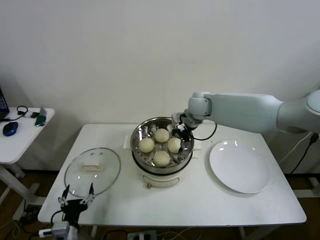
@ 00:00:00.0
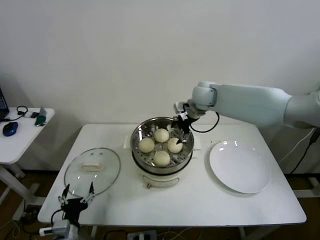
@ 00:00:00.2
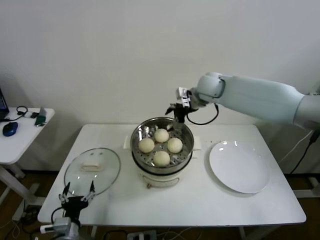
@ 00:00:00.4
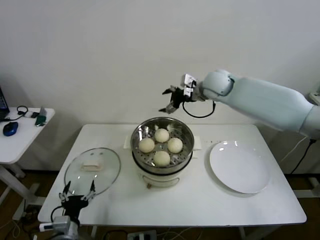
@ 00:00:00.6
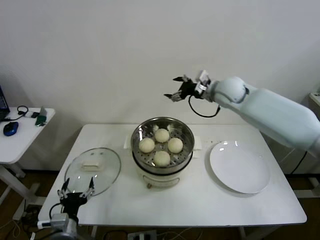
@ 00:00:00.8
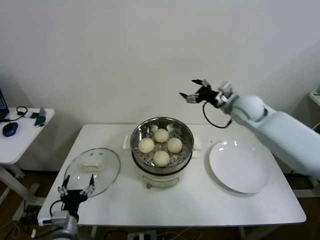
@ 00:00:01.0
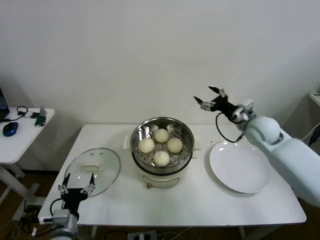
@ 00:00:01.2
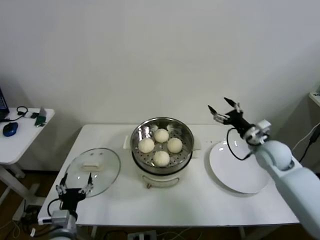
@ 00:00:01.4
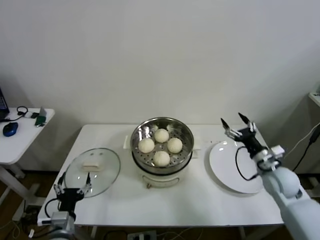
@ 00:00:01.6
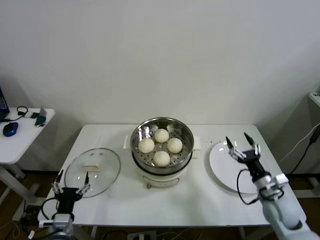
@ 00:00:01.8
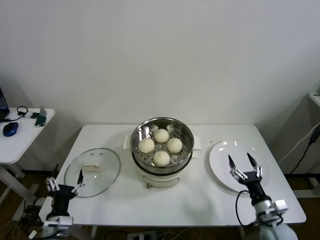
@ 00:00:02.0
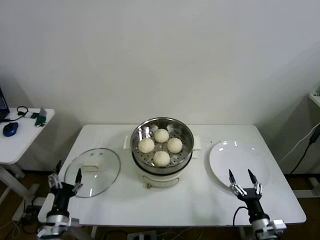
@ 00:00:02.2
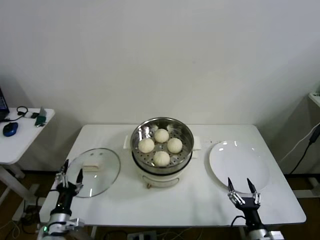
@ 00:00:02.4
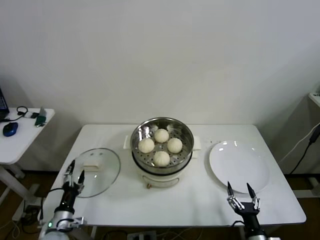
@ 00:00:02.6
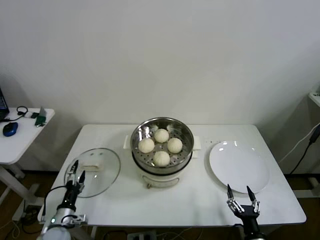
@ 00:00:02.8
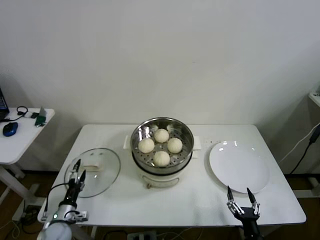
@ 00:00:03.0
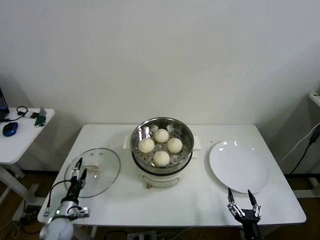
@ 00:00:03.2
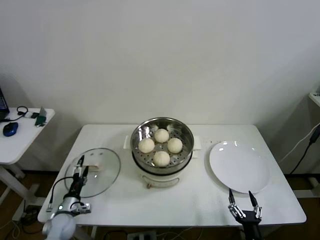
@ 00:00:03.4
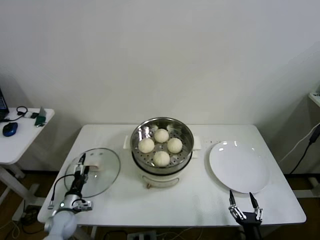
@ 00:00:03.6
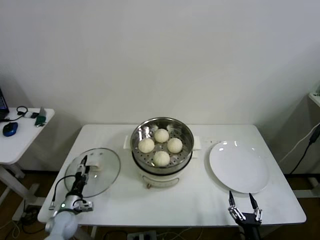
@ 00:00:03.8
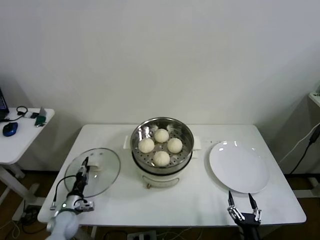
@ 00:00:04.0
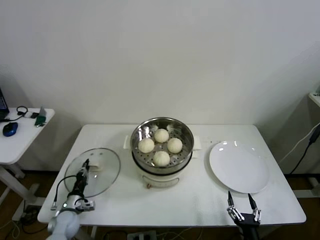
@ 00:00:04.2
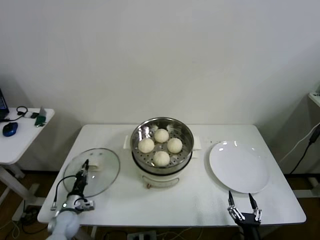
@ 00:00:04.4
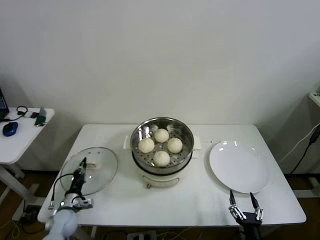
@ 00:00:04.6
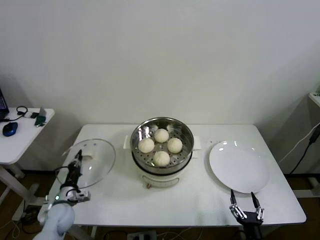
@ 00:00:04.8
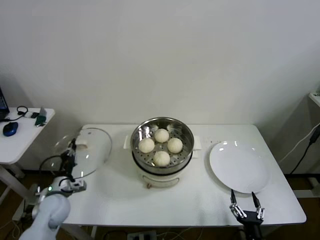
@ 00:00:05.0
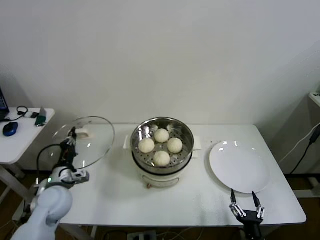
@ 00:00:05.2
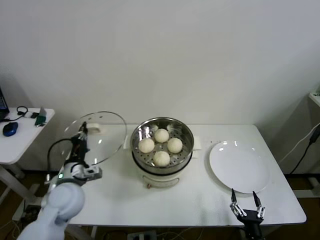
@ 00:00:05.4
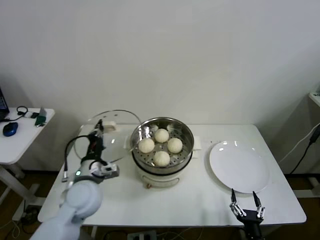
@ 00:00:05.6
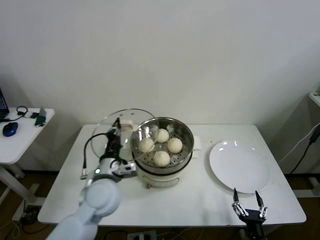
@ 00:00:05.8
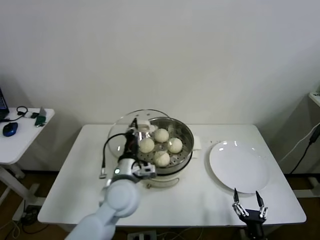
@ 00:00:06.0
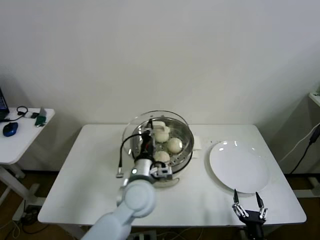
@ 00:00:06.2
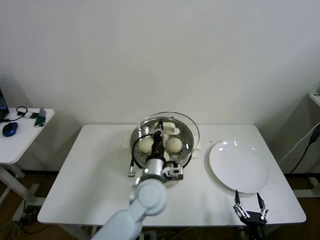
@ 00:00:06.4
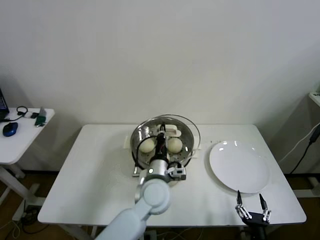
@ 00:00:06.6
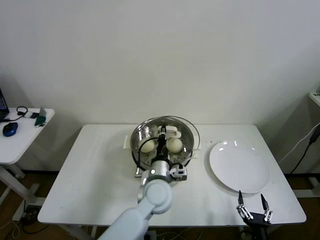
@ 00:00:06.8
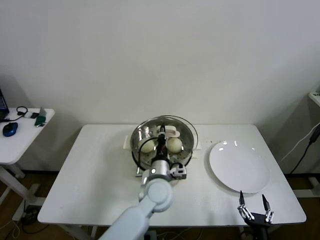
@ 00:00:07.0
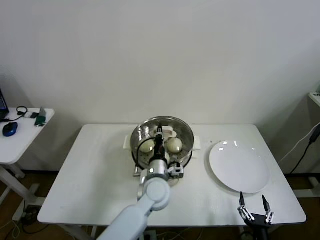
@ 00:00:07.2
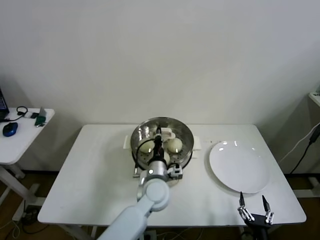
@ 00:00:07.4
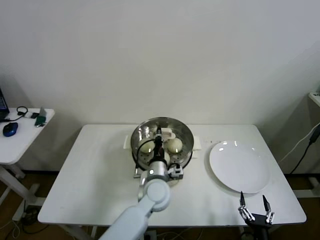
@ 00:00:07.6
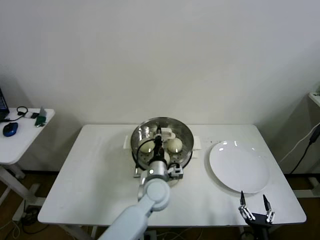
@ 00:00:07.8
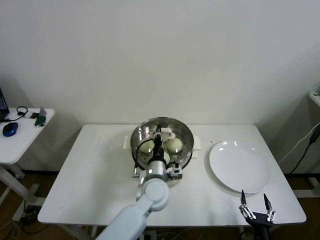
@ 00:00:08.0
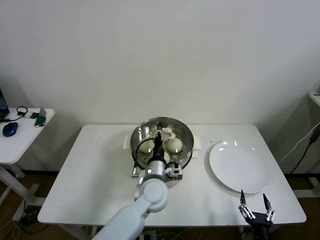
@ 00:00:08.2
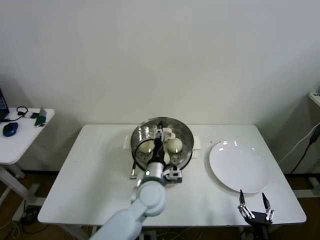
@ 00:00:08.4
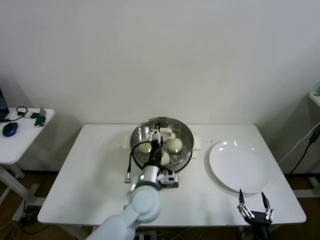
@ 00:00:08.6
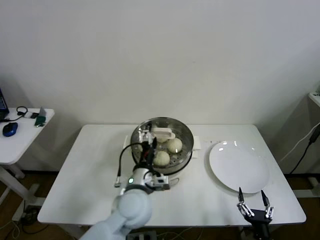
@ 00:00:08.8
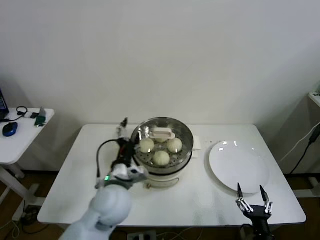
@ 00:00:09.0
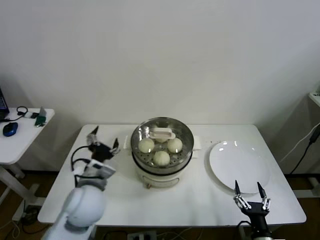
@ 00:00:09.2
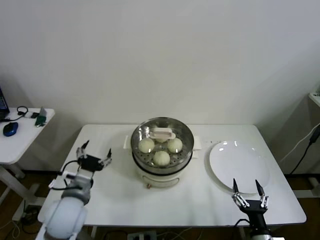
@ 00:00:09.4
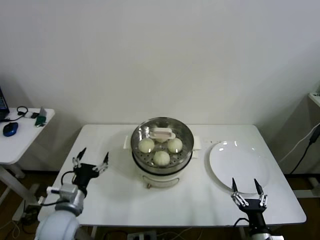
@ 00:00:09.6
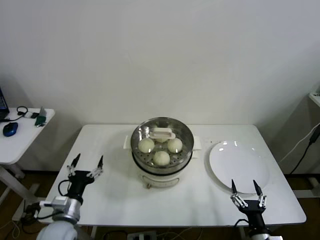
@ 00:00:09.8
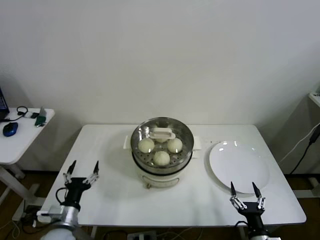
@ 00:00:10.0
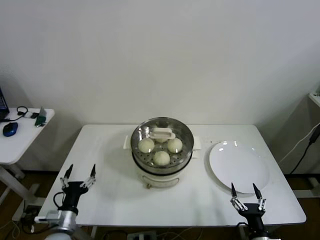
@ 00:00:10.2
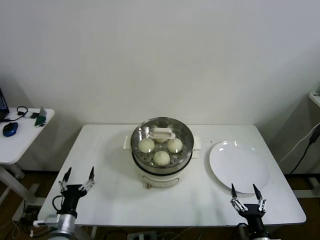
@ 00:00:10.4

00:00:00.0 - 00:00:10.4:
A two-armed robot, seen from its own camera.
Step, 00:00:00.2 - 00:00:04.4: Grasp the pot lid with left gripper.
Step, 00:00:04.6 - 00:00:08.0: Place the pot lid on the steamer with left gripper.
00:00:00.0 - 00:00:01.4: The right gripper travels to the right, backward and downward by roughly 30 cm.
00:00:01.4 - 00:00:03.0: The left gripper moves downward, to the left and forward, some 15 cm, while the right gripper shifts some 35 cm backward and downward.
00:00:03.0 - 00:00:04.4: The left gripper travels forward by roughly 5 cm, and closes its fingers.
00:00:04.4 - 00:00:06.0: The left gripper shifts roughly 35 cm upward and to the right.
00:00:06.0 - 00:00:07.4: The left gripper travels to the right and downward by roughly 10 cm.
00:00:07.4 - 00:00:09.0: The left gripper shifts some 15 cm to the left, upward and backward, and opens its fingers.
00:00:09.0 - 00:00:10.4: The left gripper is displaced to the left, downward and backward by approximately 25 cm.
